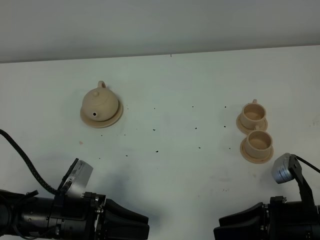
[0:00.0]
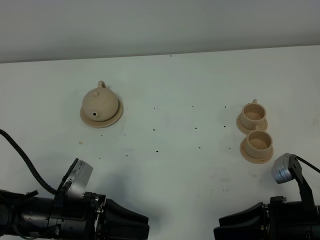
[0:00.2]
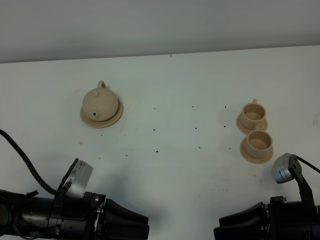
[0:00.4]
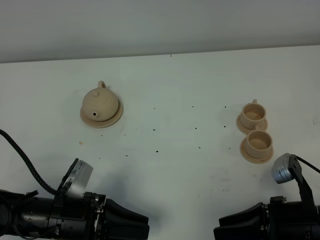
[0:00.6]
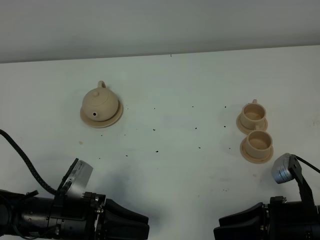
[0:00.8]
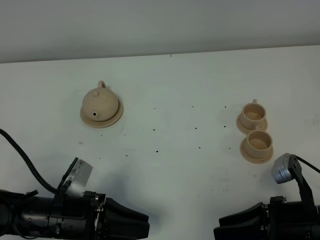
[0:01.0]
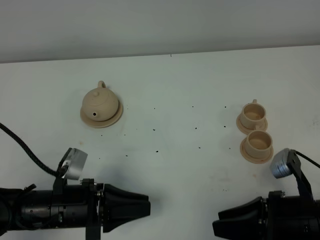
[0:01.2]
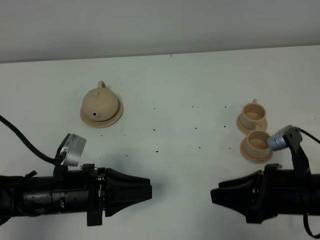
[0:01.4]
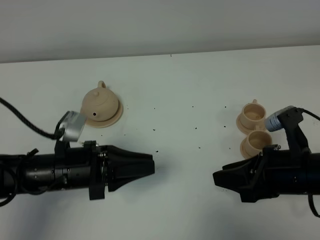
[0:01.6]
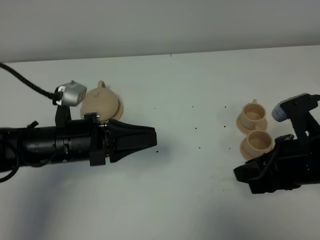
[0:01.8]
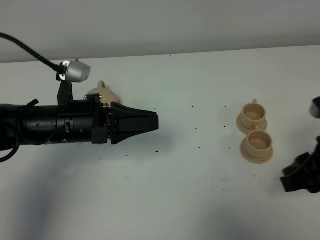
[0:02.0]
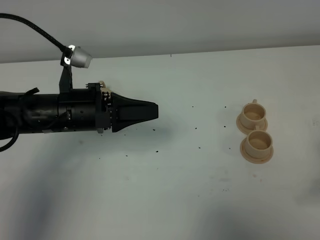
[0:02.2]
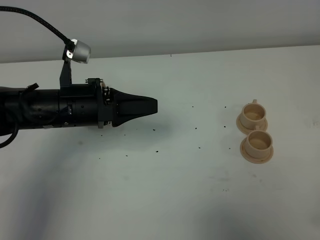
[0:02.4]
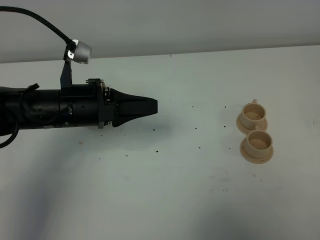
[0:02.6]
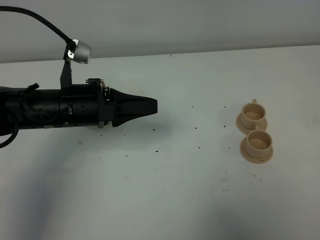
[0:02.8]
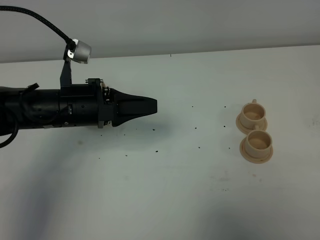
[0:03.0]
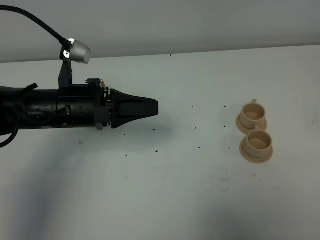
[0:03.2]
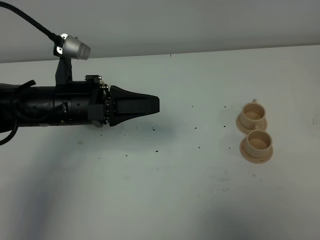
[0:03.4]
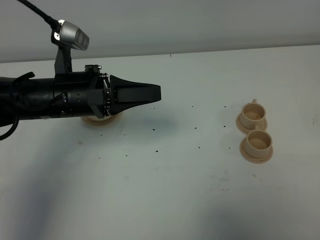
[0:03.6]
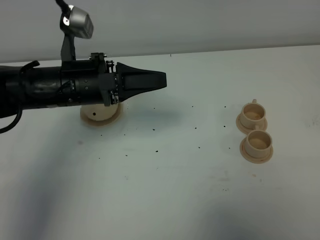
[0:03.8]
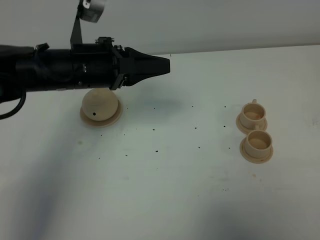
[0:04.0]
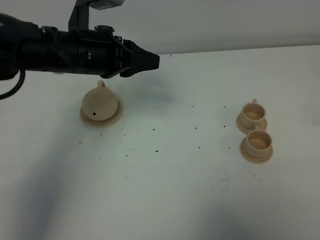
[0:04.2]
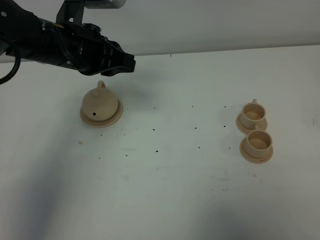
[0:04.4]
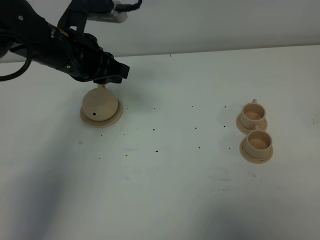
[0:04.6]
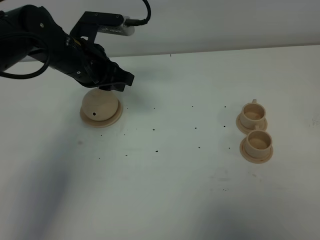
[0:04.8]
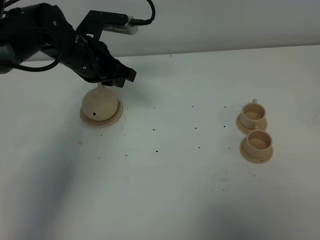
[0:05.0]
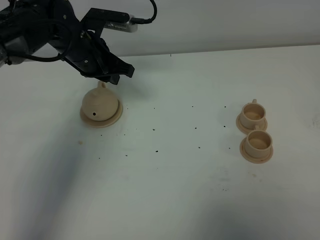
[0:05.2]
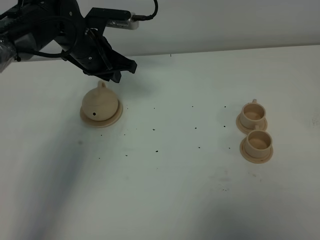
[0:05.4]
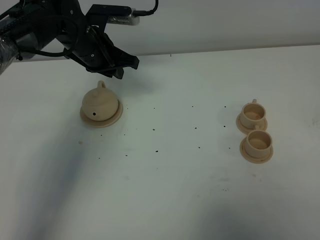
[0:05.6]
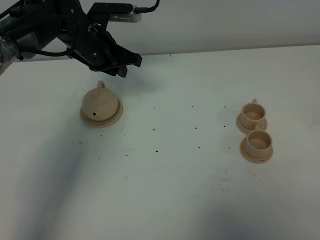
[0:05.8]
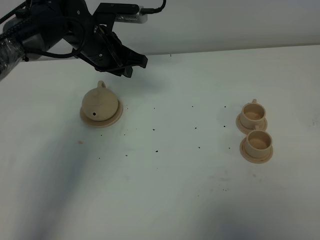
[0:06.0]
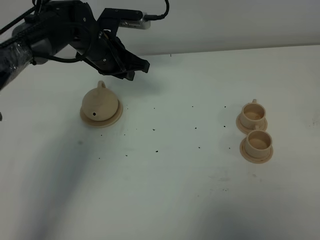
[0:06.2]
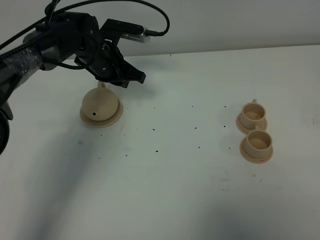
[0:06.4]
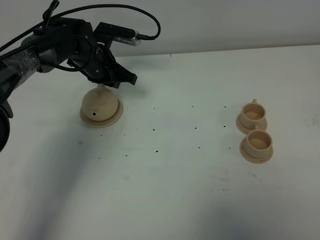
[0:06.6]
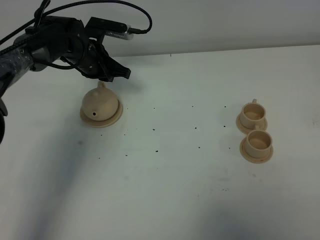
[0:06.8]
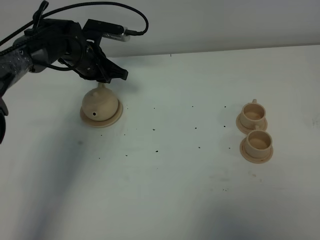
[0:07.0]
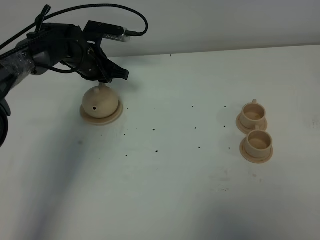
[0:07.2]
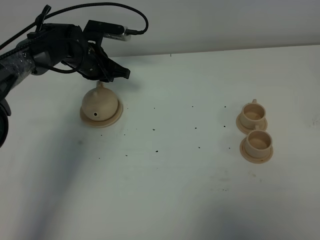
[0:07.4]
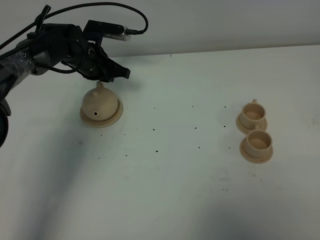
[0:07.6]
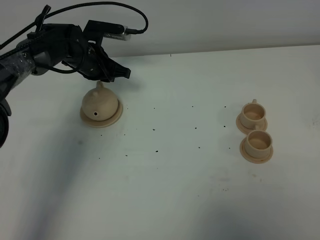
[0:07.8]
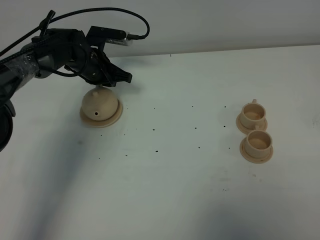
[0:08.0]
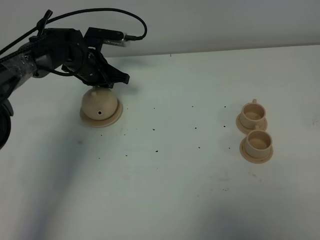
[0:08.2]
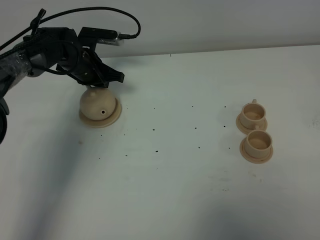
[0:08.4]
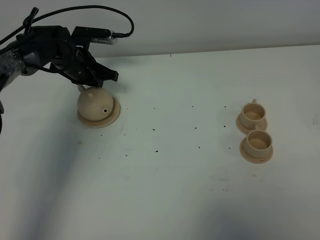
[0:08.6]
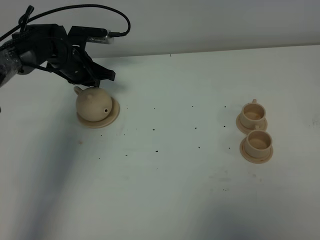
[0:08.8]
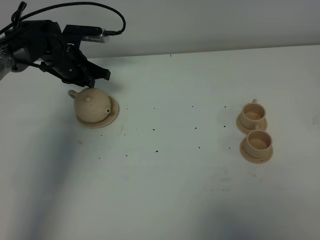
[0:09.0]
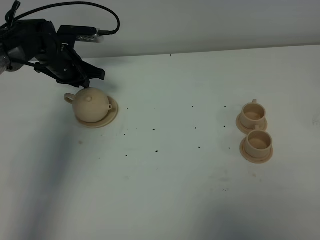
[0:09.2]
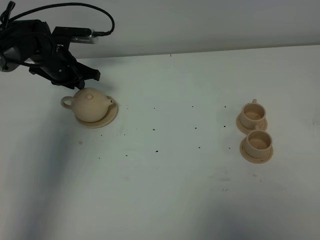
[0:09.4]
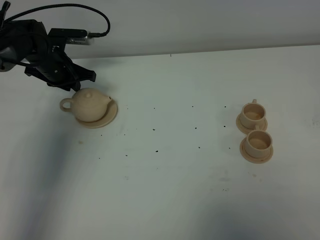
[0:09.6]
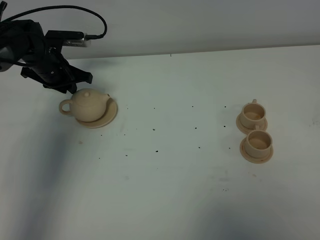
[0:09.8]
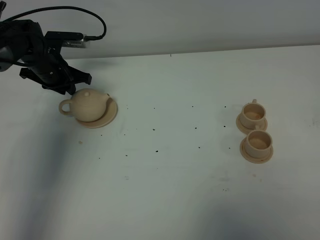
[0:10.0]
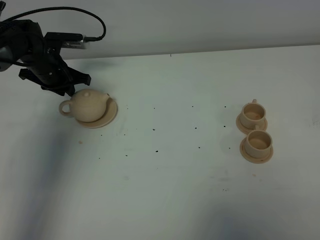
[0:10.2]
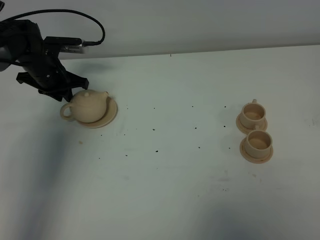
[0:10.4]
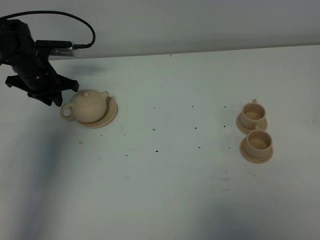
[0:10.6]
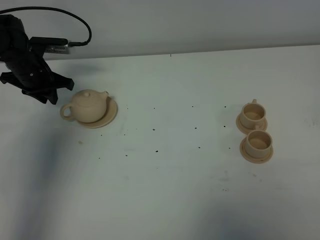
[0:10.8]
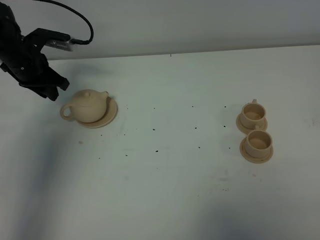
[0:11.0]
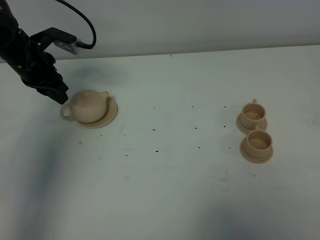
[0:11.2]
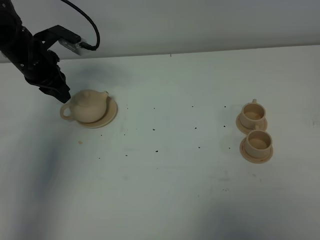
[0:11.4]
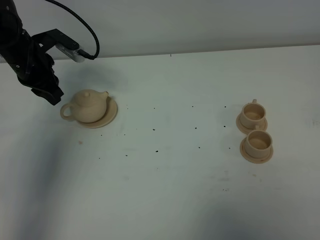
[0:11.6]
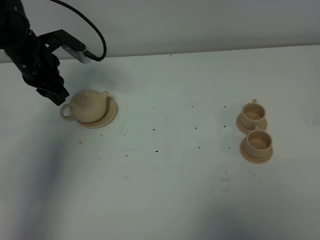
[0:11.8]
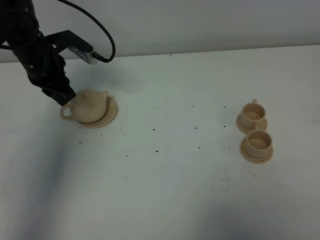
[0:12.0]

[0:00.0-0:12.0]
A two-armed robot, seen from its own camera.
Task of the whole recording: grasp the brown teapot and pour the tea into the two brown teacups one by one, put the brown teapot back in its original place.
0:00.0 to 0:01.6: Both grippers travel together forward, some 5 cm.
0:01.6 to 0:03.0: The left gripper travels forward and upward by some 10 cm; the right gripper is displaced backward, to the right and upward by some 25 cm.
0:03.0 to 0:04.4: The left gripper heads upward and forward, covering roughly 10 cm.
0:04.4 to 0:06.0: The left gripper heads forward and downward, covering roughly 10 cm.
0:06.0 to 0:07.6: The left gripper goes about 5 cm downward.
0:07.6 to 0:09.0: The grippers stay close to where they were, moving slightly.
0:09.0 to 0:10.4: The left gripper changes place by roughly 5 cm.
0:10.4 to 0:12.0: The left gripper heads upward, covering some 5 cm.

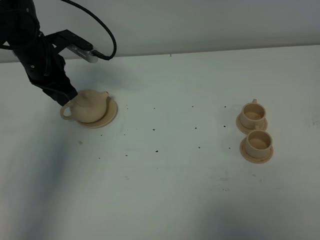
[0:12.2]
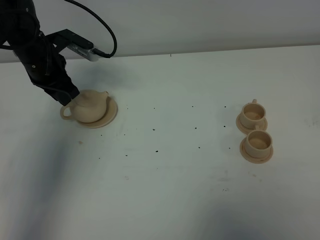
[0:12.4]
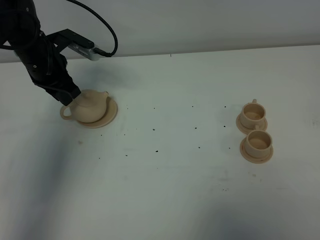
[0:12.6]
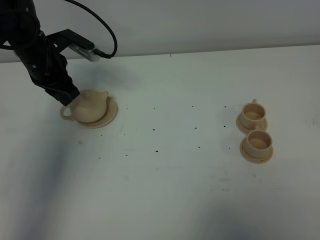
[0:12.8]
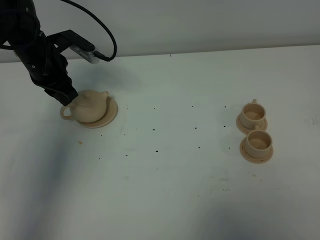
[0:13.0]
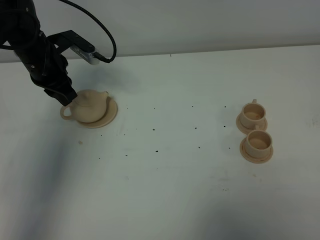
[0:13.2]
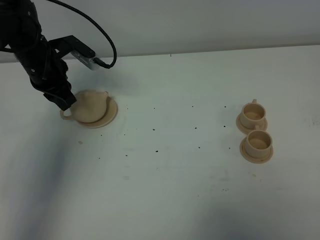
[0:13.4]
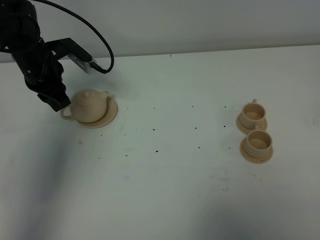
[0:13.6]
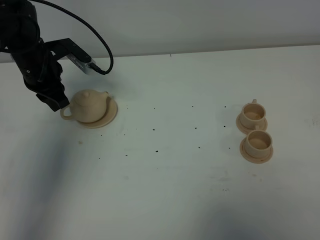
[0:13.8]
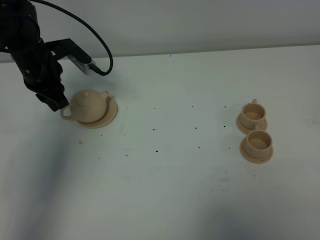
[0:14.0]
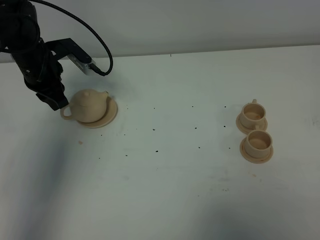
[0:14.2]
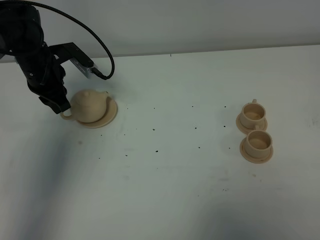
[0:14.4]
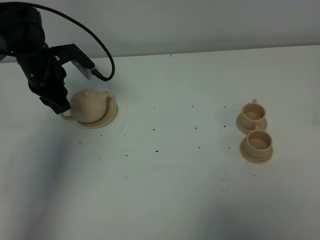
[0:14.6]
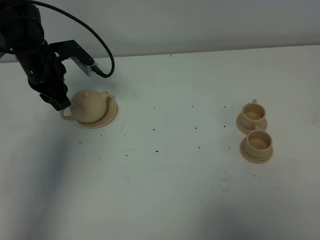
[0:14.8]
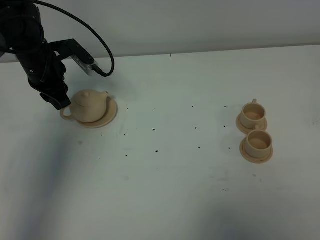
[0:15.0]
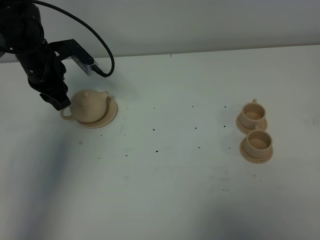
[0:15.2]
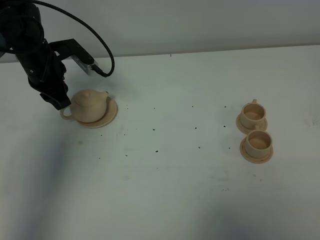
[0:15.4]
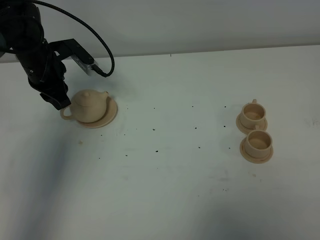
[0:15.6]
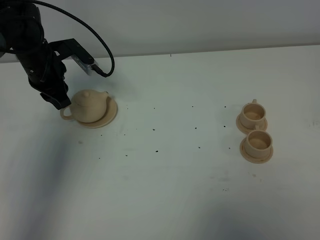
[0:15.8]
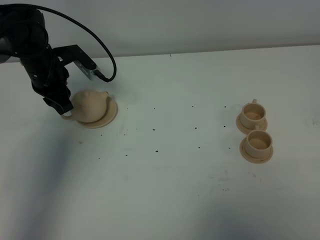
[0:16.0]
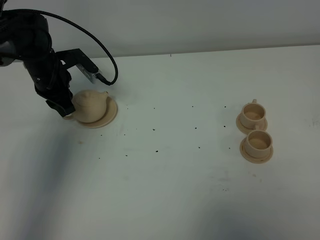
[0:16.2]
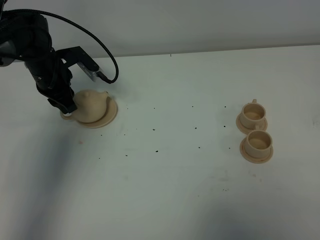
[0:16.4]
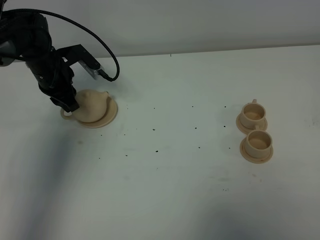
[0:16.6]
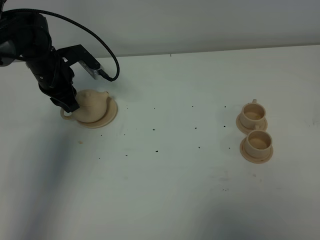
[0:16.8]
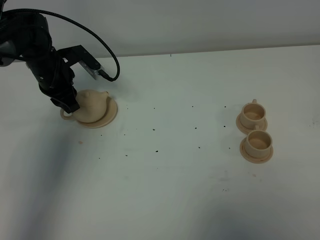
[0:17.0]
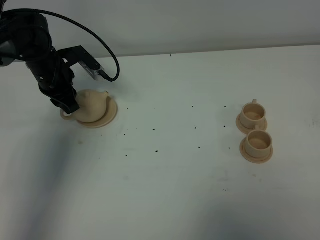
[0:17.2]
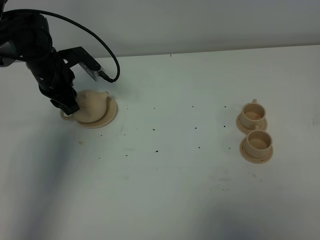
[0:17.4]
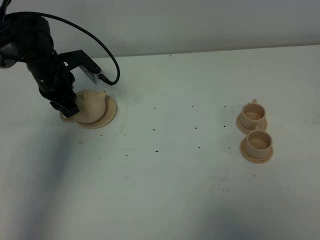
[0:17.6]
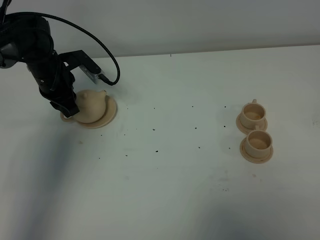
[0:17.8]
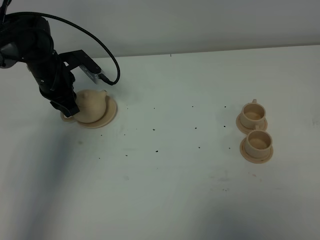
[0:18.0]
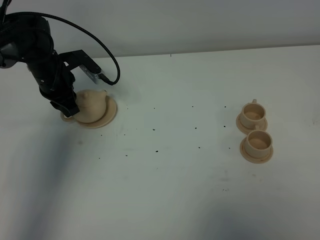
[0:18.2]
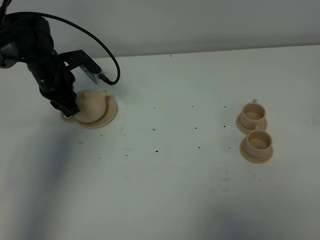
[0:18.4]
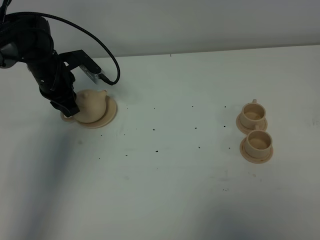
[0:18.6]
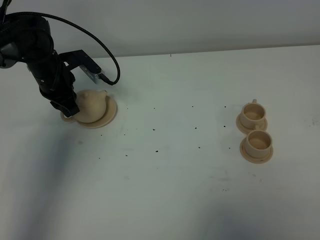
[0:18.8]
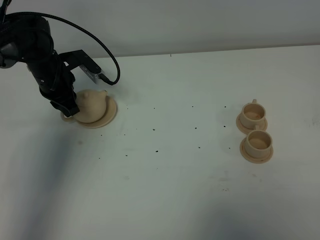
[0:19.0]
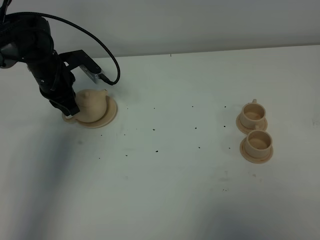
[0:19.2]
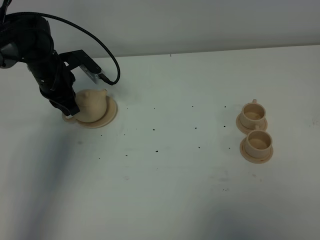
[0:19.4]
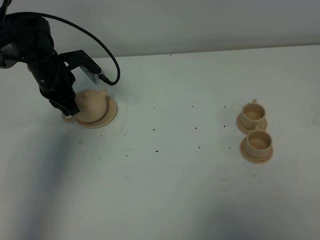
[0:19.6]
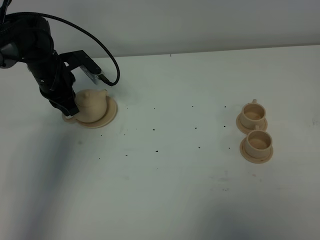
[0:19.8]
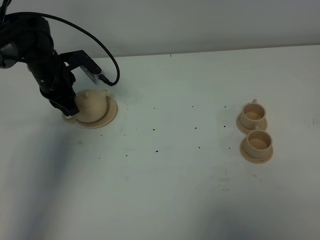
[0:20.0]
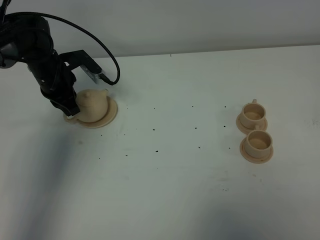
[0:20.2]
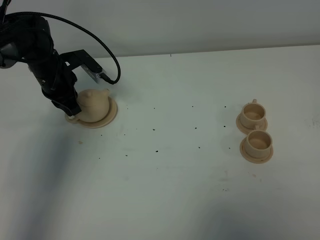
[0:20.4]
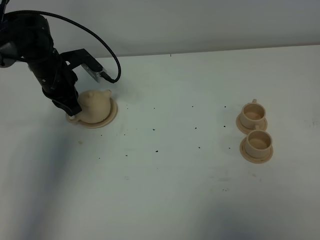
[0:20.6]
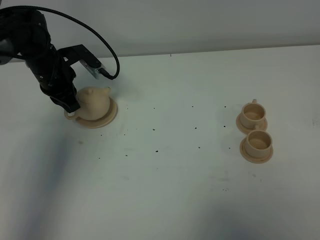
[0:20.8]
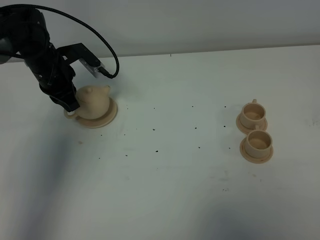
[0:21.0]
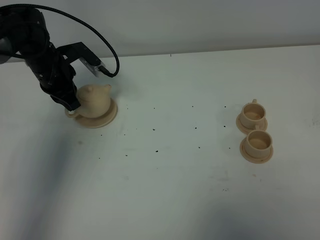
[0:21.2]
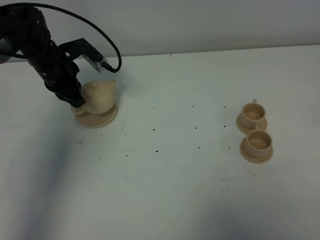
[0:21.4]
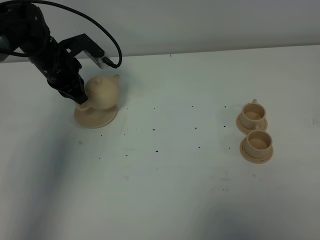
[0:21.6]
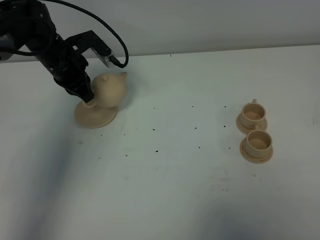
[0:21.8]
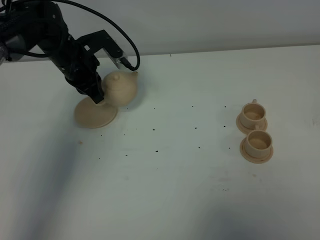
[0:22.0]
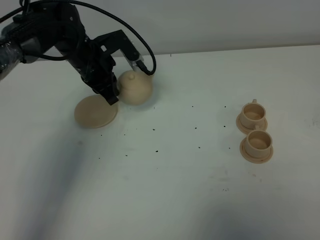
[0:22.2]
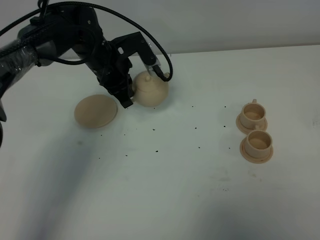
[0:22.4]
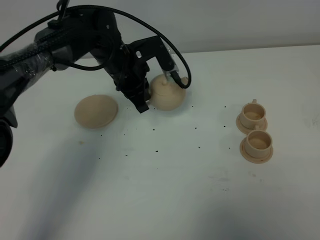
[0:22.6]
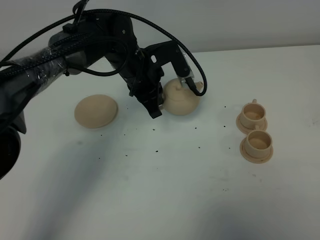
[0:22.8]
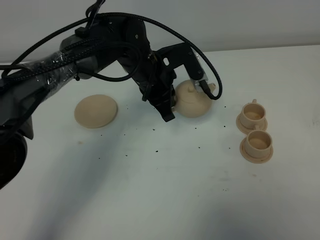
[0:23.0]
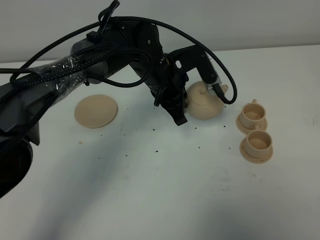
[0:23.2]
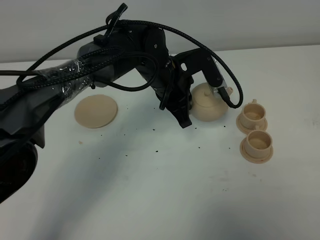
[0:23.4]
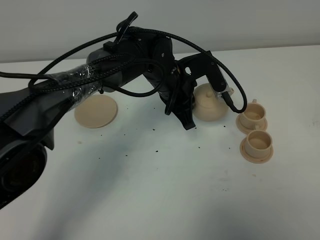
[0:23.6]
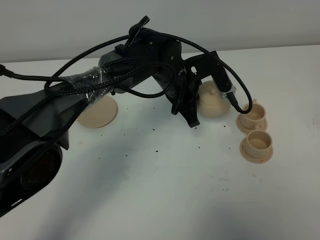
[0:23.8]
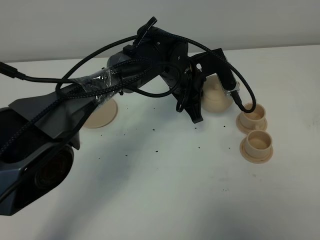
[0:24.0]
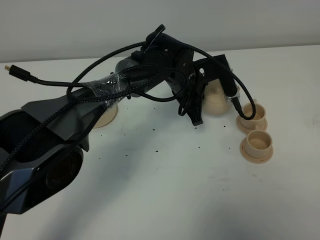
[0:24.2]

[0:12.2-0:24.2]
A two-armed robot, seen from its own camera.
Task of the whole recording: grasp the brown teapot and pour the tea into the two brown teacups one by one, put the brown teapot back in its original place.
Step, 0:12.2 to 0:20.8: Pick up the teapot with the left gripper.
0:12.2 to 0:16.6: The grippers move only a little.
0:16.6 to 0:18.2: The two grippers keep their place.
0:19.8 to 0:21.2: There are only small adjustments of the grippers.
0:21.2 to 0:22.6: The left gripper shifts some 15 cm to the right.
0:22.6 to 0:24.2: The left gripper heads to the right, covering roughly 10 cm.
